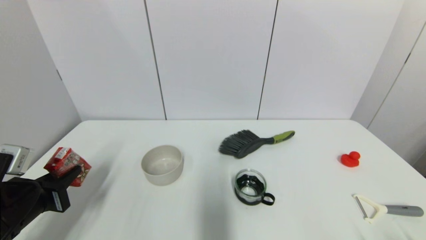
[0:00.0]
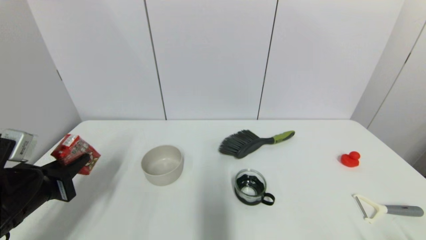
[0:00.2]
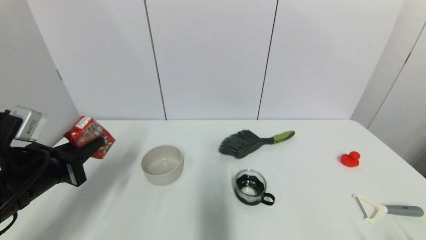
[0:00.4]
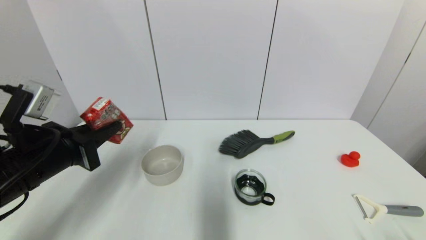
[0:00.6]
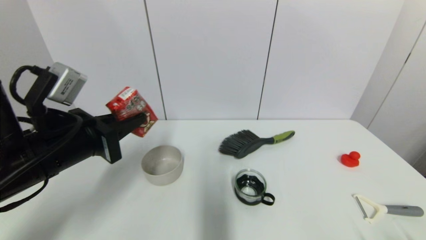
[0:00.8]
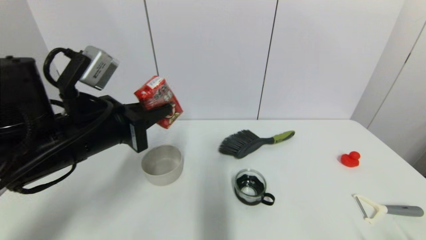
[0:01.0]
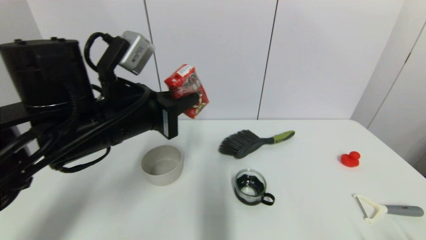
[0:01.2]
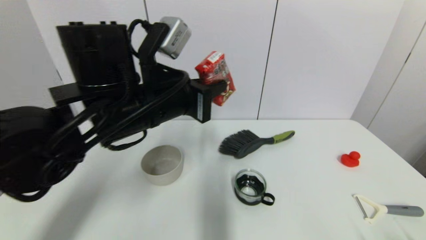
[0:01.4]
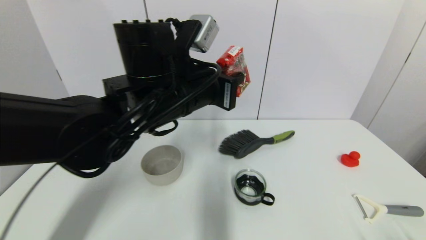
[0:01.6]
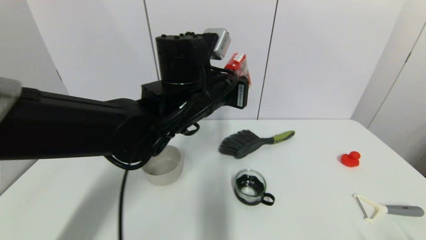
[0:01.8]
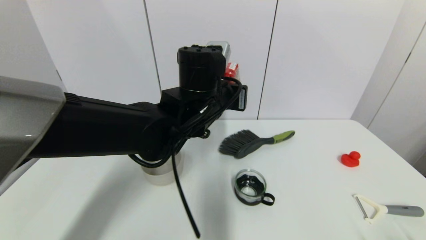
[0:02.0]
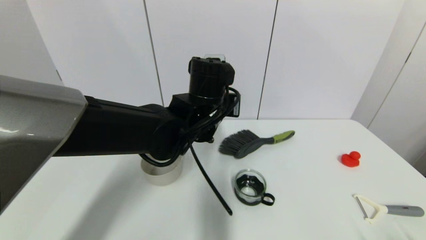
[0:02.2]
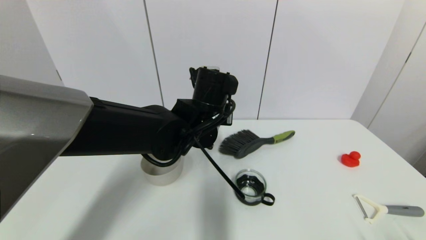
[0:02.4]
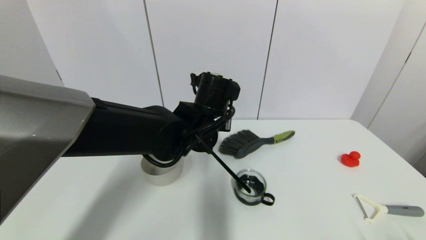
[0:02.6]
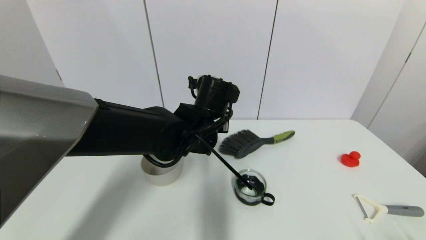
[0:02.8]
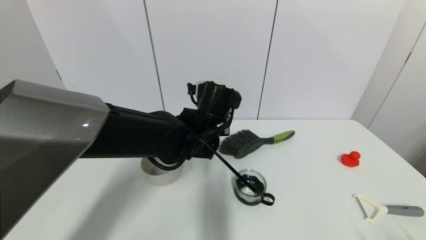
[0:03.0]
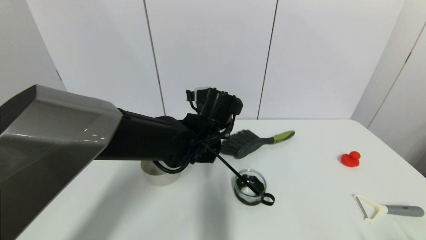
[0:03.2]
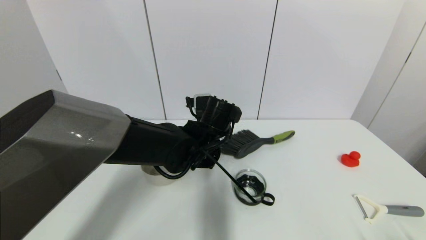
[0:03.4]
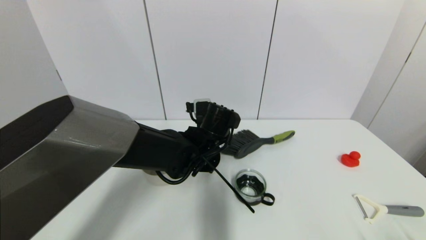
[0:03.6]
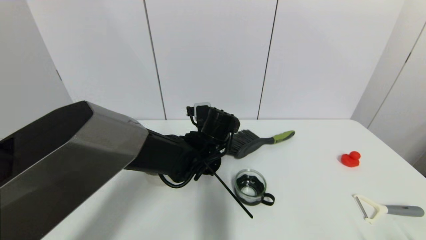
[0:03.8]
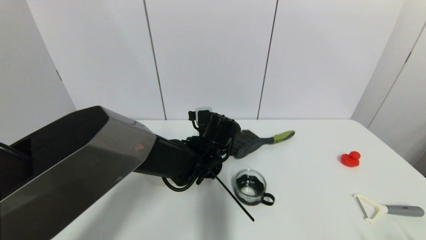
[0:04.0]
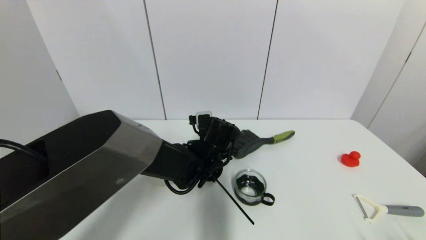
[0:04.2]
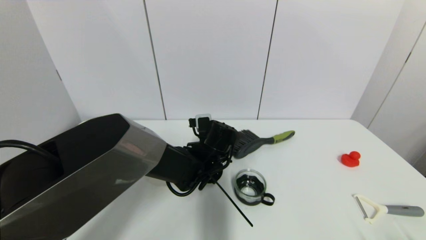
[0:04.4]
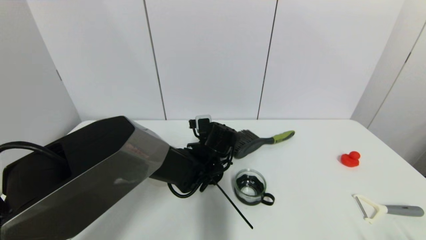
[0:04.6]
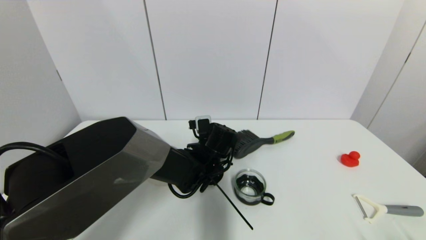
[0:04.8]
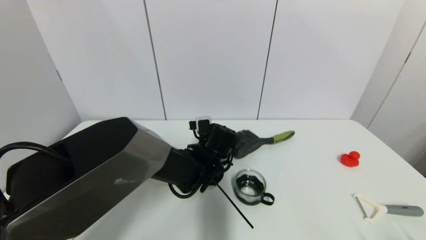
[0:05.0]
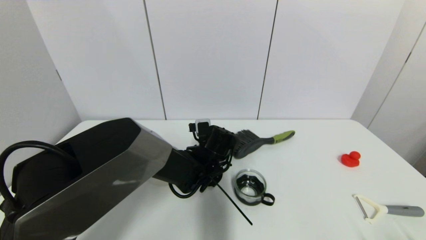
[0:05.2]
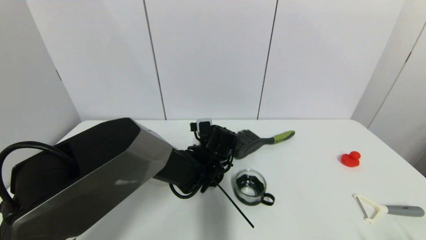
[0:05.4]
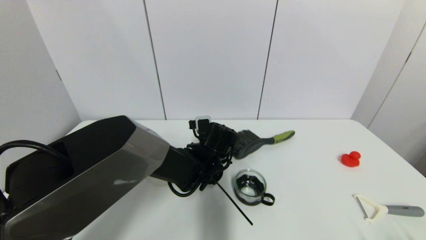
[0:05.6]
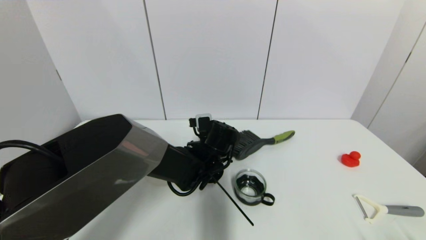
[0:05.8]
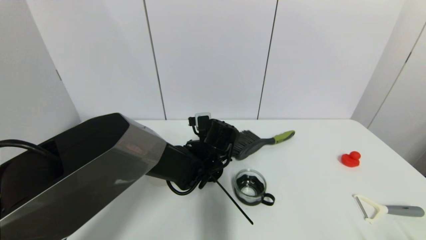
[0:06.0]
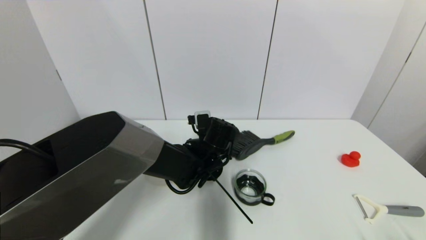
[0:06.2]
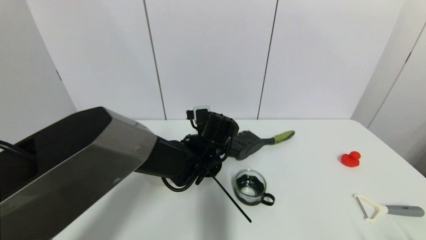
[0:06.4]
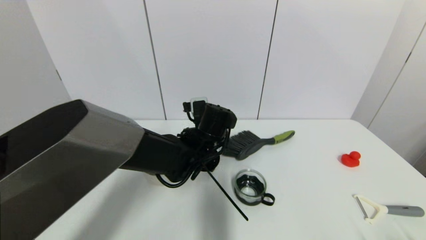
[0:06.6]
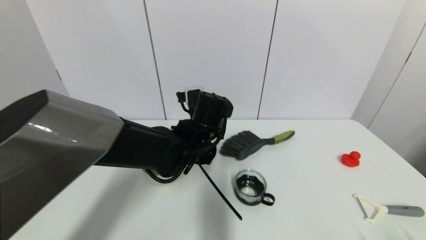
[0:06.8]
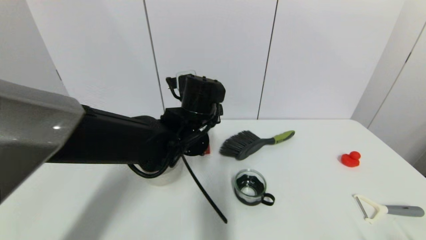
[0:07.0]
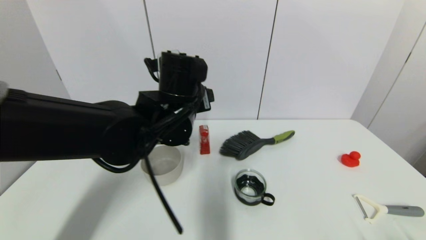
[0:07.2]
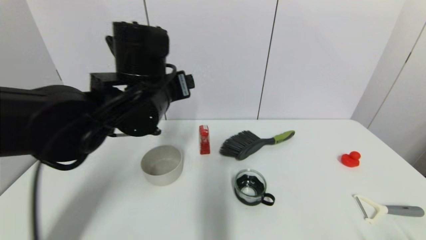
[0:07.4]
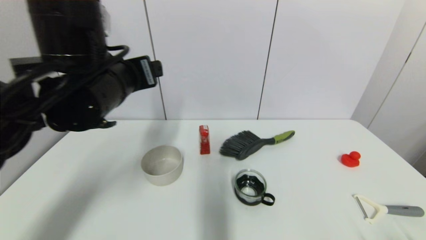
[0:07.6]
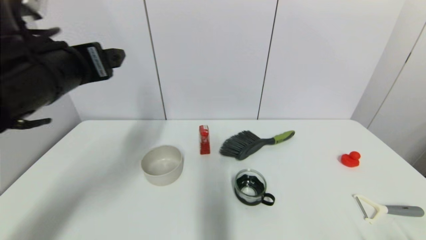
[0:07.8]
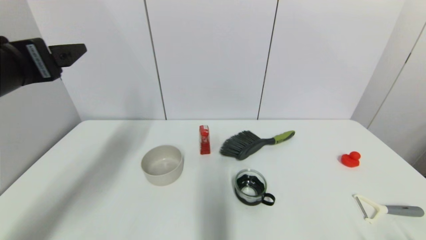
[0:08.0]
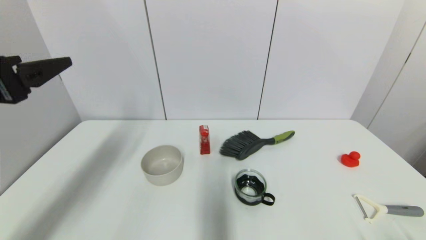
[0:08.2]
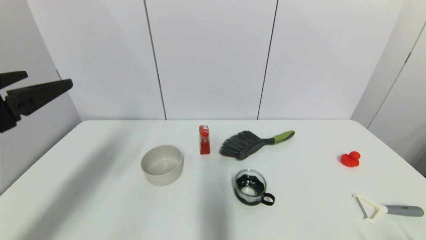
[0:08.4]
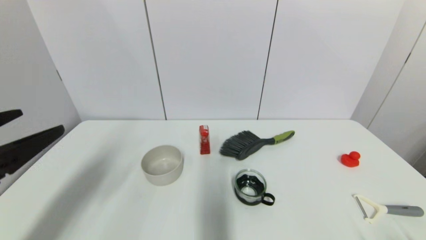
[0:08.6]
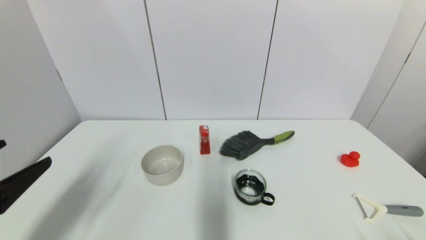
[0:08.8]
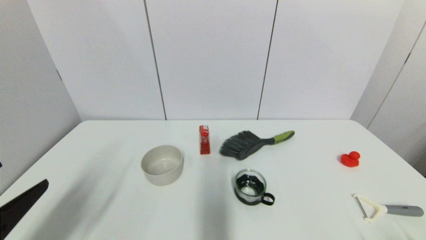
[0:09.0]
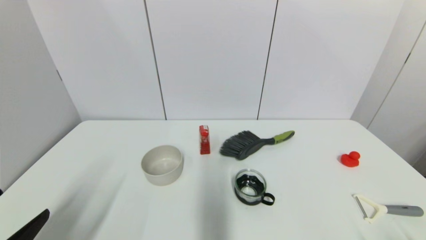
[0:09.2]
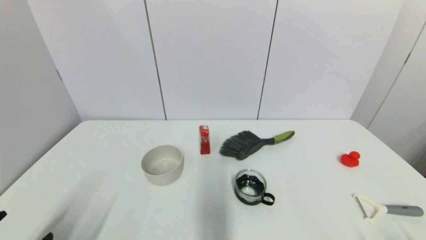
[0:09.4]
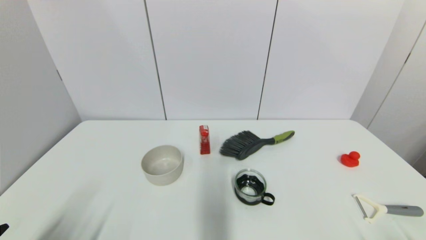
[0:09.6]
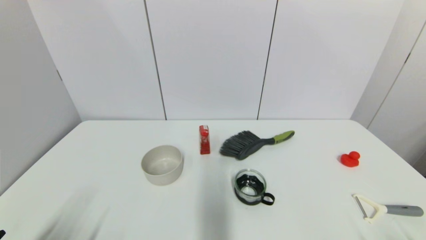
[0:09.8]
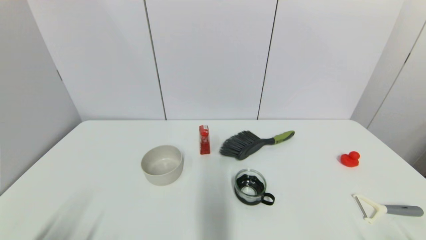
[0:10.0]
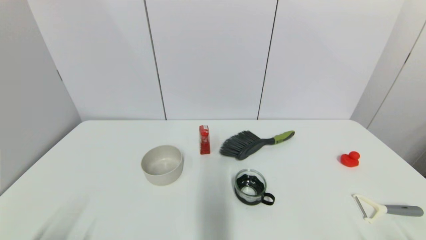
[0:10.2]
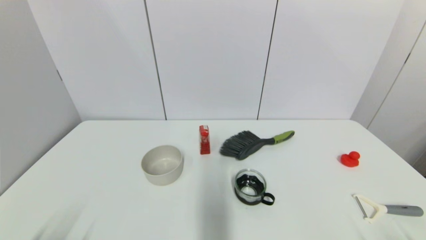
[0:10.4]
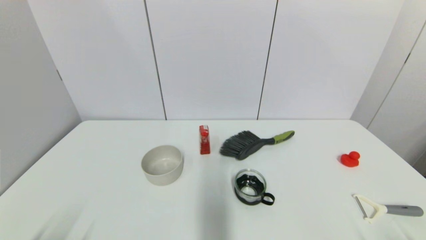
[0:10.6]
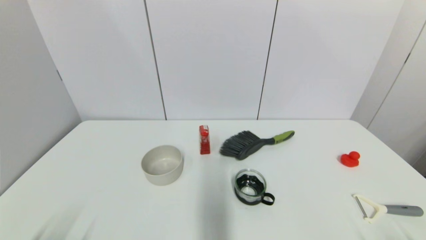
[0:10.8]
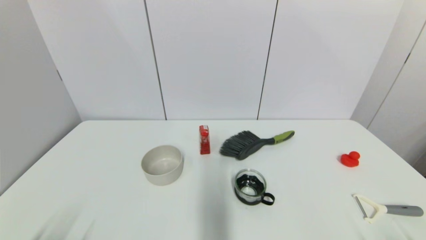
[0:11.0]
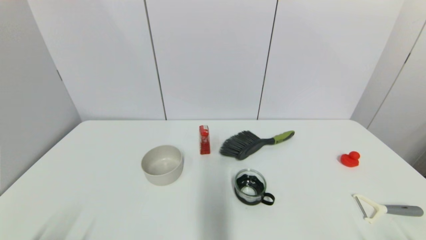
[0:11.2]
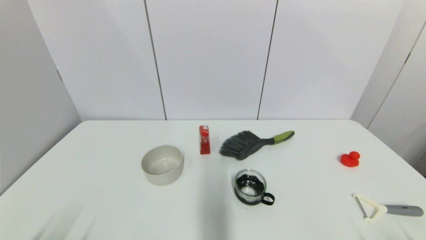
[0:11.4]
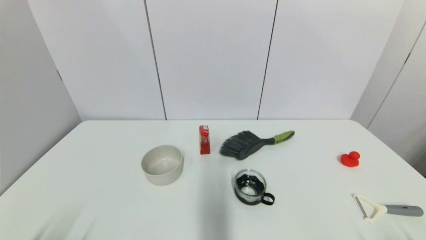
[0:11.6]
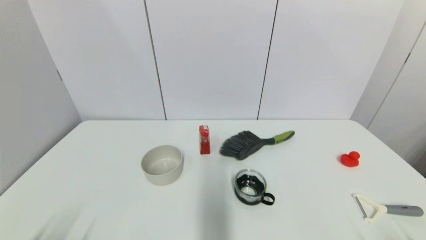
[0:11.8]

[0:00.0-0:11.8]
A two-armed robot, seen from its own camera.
Step, 0:00.0 to 0:05.4: Place the wangzai milk on the table with left gripper.
0:00.0 to 0:01.4: The left gripper moves to the right and upward, roughly 25 cm.
0:01.4 to 0:03.0: The left gripper travels downward, to the right and forward by roughly 15 cm.
0:03.0 to 0:04.4: The left gripper moves downward, approximately 10 cm.
0:04.4 to 0:06.0: The left gripper opens its fingers.
0:06.0 to 0:07.4: The left gripper moves upward and to the left, some 20 cm.
0:07.4 to 0:08.8: The left gripper is displaced to the left and backward by approximately 30 cm.
0:08.8 to 0:10.4: The left gripper heads downward and backward, covering approximately 15 cm.
0:10.4 to 0:11.8: The two grippers keep their place.
